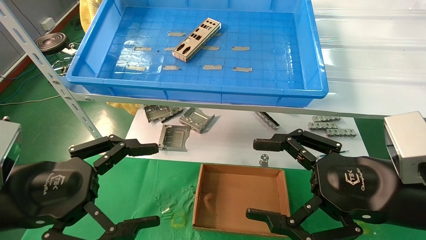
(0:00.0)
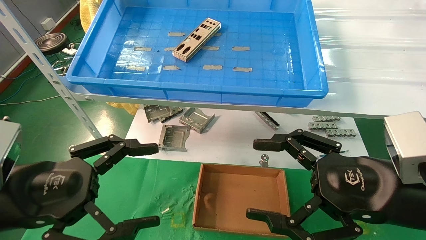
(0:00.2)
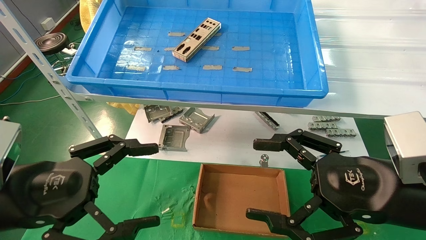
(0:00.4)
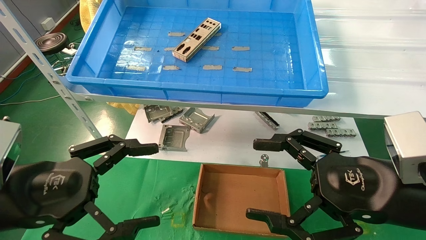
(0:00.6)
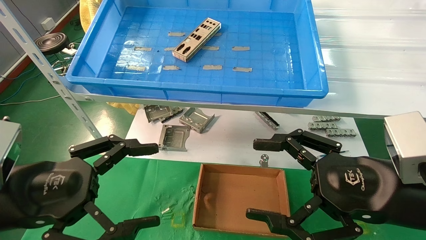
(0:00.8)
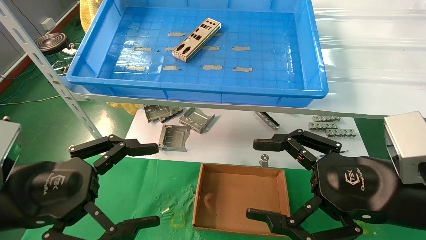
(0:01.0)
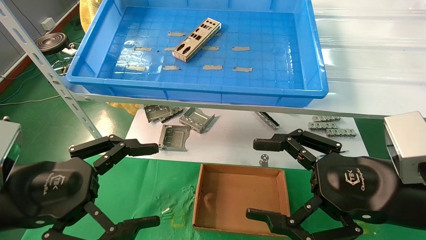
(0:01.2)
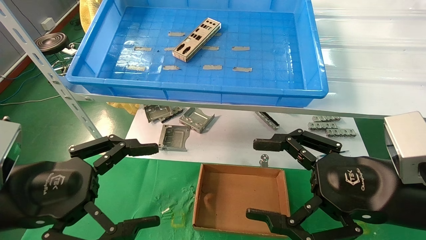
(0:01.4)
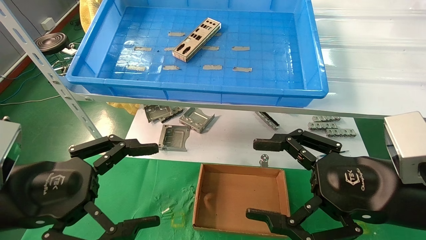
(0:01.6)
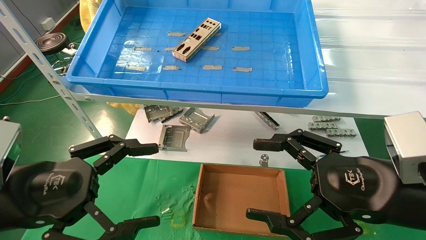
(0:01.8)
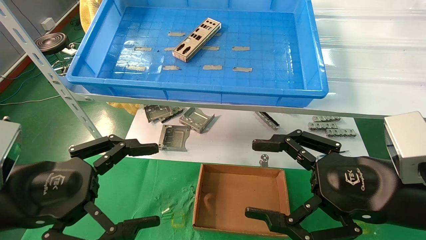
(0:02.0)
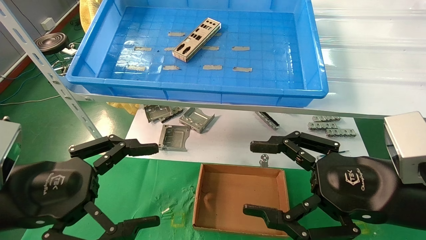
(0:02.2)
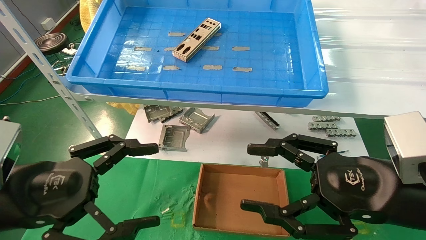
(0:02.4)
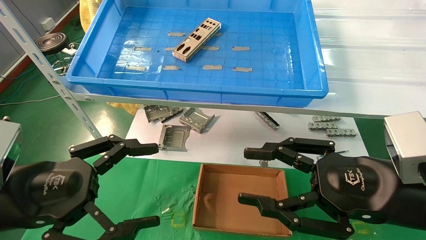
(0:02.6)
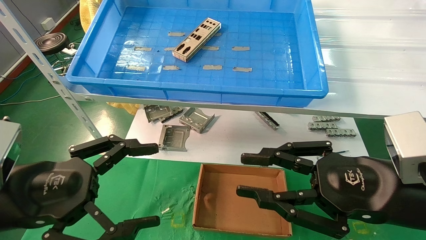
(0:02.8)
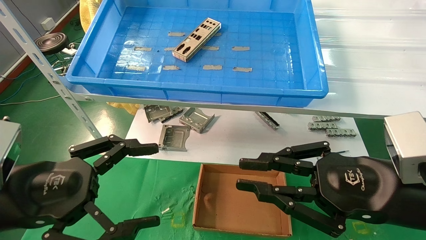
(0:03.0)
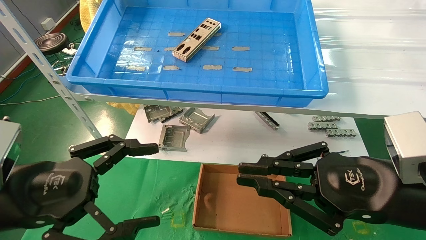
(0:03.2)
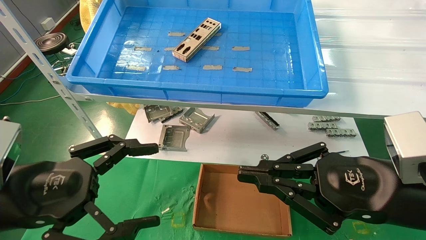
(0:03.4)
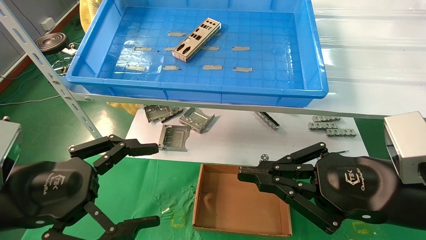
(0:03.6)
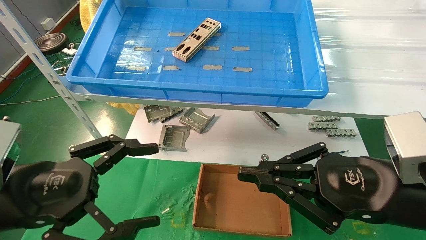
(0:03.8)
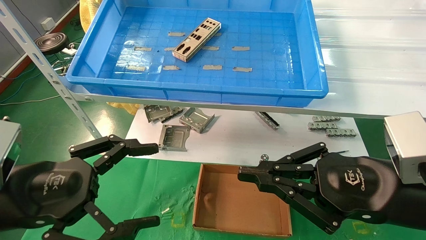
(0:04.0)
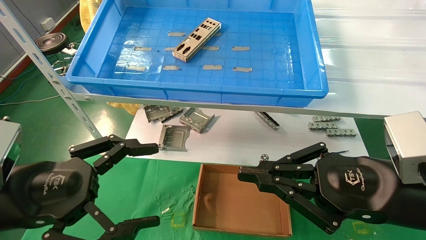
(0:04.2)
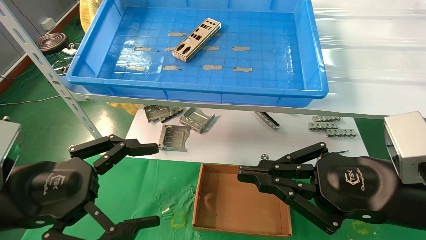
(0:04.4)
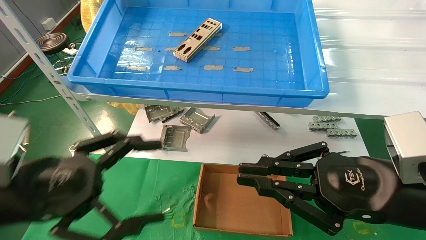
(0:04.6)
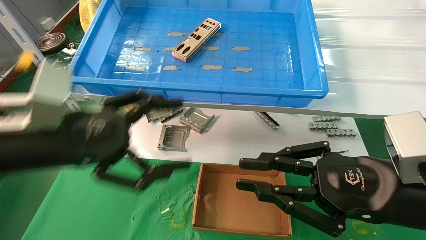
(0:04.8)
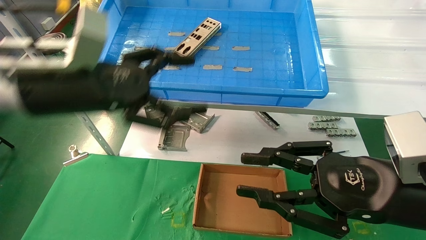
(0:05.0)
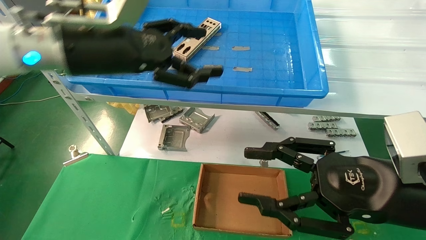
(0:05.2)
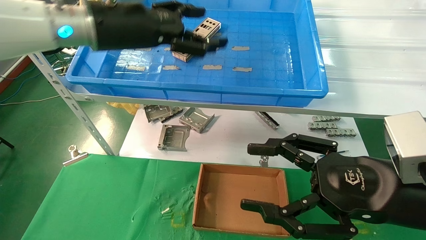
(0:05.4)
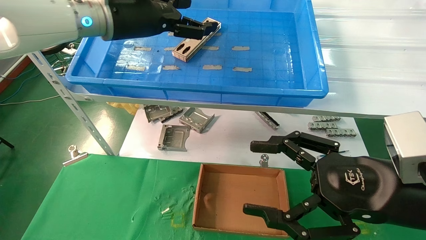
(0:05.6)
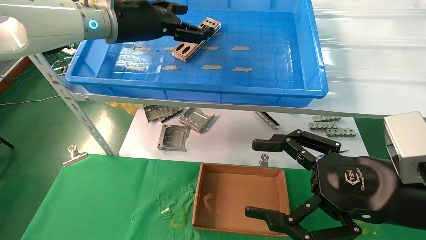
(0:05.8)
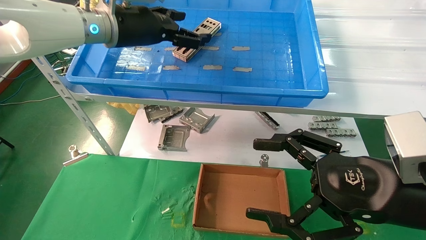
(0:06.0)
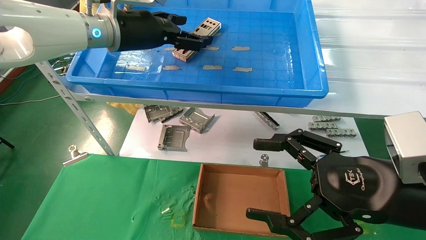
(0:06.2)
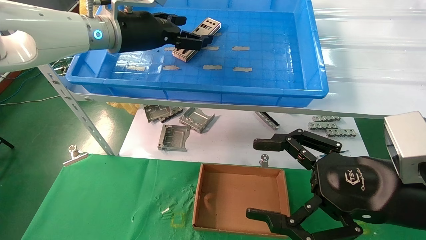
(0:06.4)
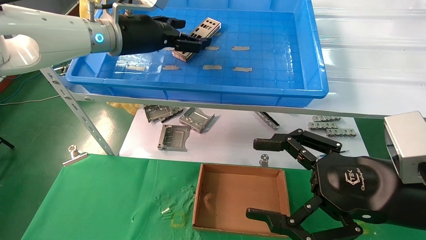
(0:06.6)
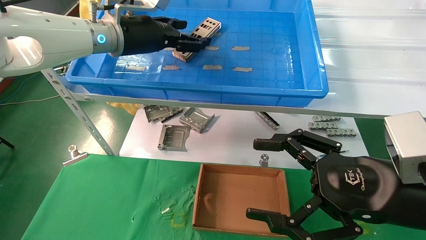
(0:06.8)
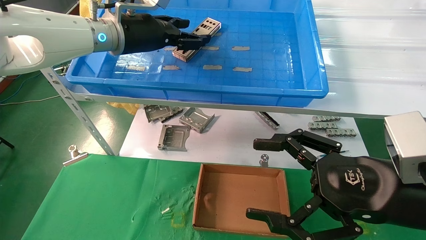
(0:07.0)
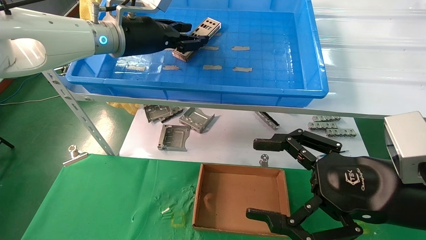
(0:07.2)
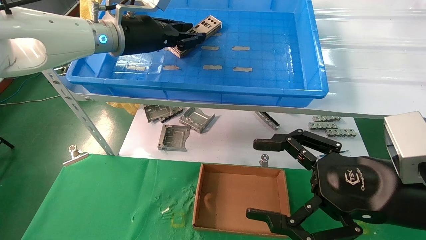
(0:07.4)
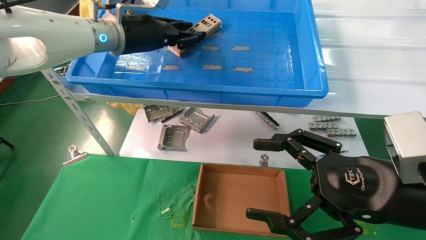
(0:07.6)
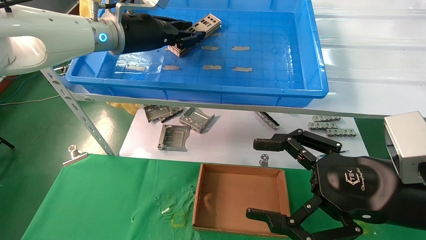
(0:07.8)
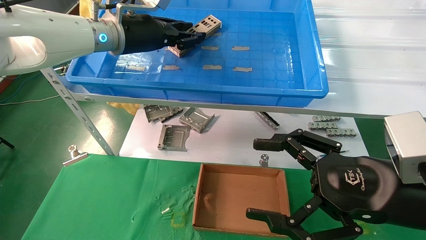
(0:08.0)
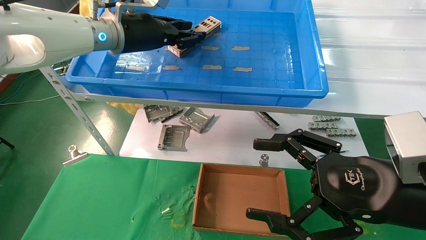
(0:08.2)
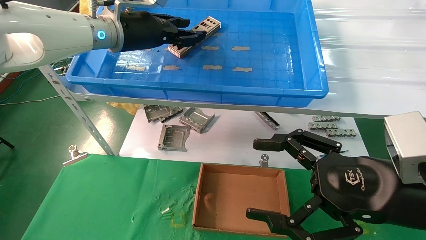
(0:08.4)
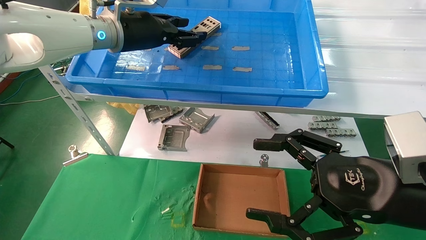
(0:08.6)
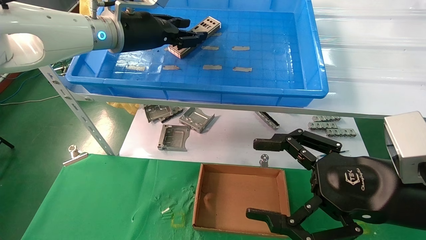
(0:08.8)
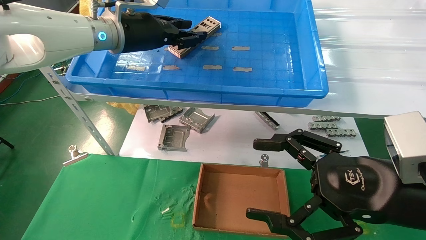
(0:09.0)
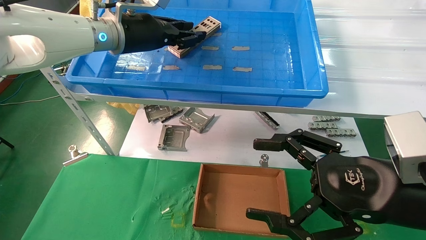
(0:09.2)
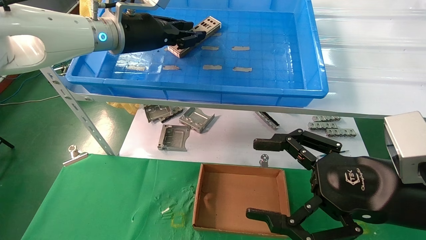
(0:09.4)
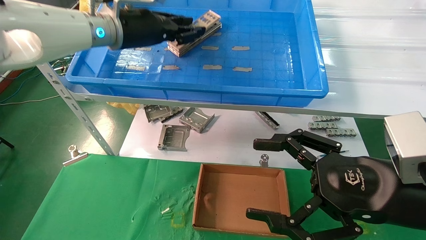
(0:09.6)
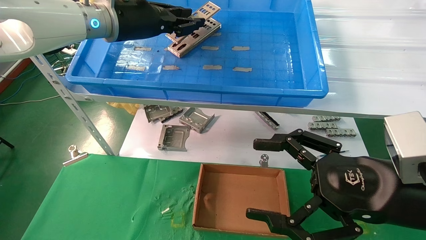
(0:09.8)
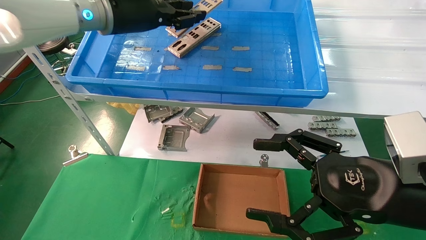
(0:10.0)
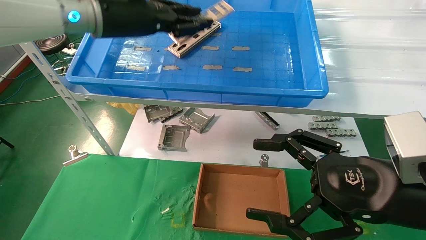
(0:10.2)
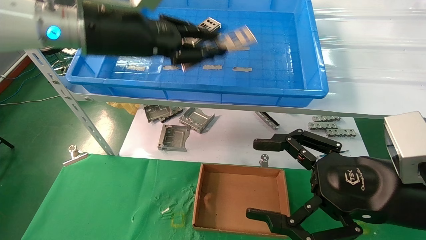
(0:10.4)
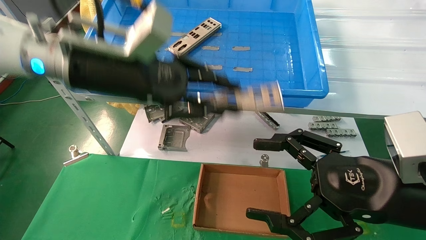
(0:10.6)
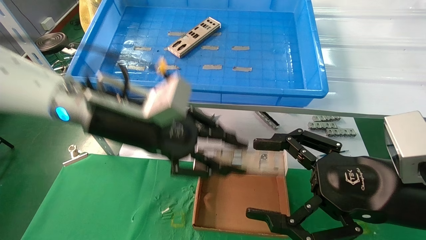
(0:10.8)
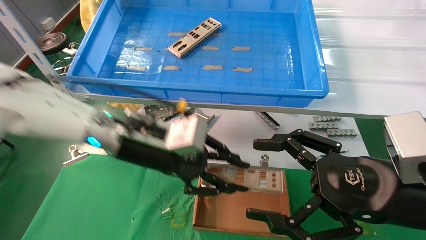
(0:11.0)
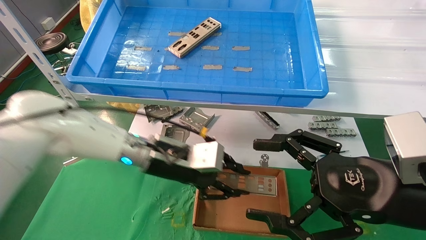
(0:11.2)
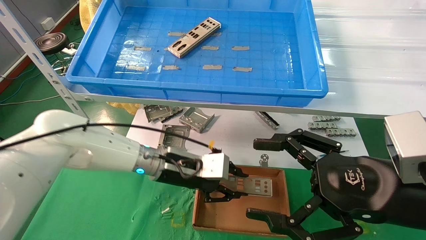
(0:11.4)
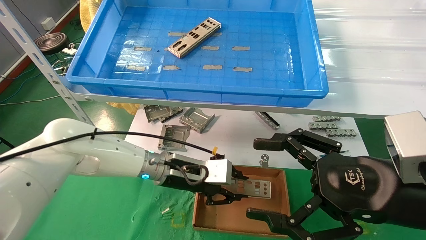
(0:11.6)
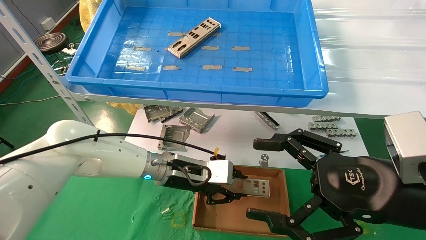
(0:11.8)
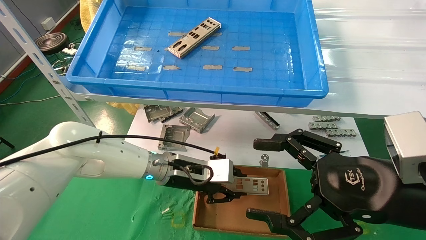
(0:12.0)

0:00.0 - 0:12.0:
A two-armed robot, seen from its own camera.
Task of the whole recording: pick up the parts on the tray and put them in the cardboard box.
Step, 0:05.0 - 0:09.6: Pick up the IO bracket from the container box.
0:00.0 - 0:01.6: Both grippers stay about where they are.
0:01.6 - 0:03.0: The right gripper closes up.
0:03.0 - 0:04.4: Both grippers stay about where they are.
0:04.4 - 0:06.0: The left gripper shifts about 30 cm forward, upward and to the right. Meanwhile the right gripper opens.
0:06.0 - 0:07.6: The left gripper closes.
0:07.6 - 0:09.0: The two grippers keep their place.
0:09.0 - 0:10.4: The left gripper travels backward by about 10 cm.
0:10.4 - 0:12.0: The left gripper is displaced downward by roughly 25 cm.

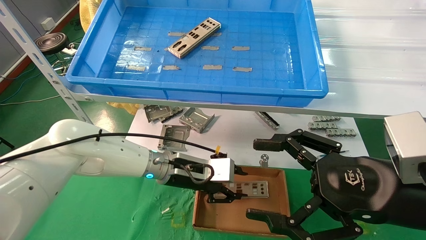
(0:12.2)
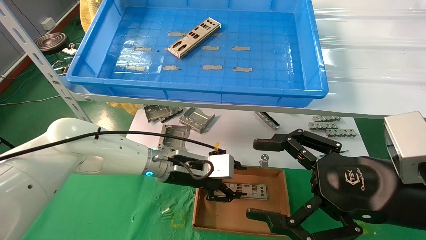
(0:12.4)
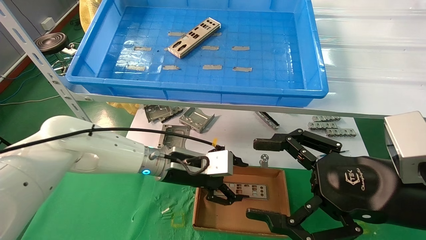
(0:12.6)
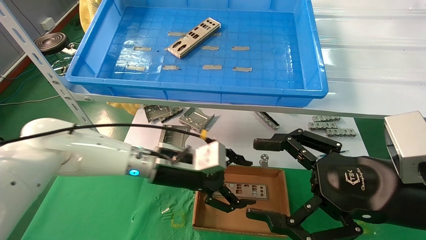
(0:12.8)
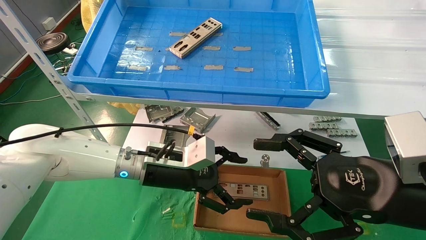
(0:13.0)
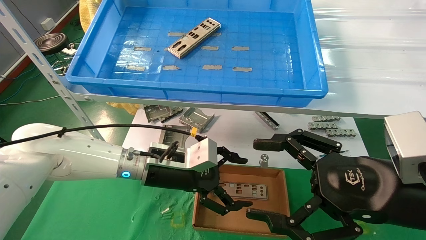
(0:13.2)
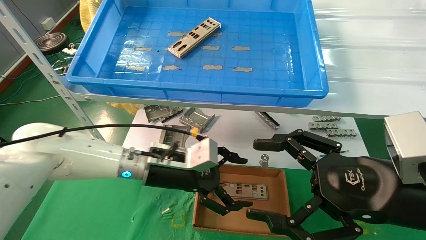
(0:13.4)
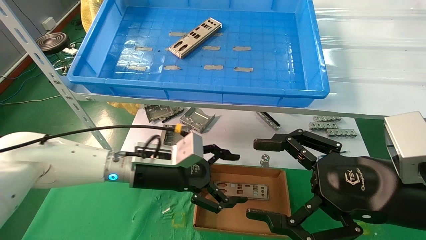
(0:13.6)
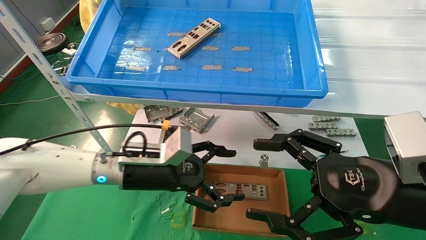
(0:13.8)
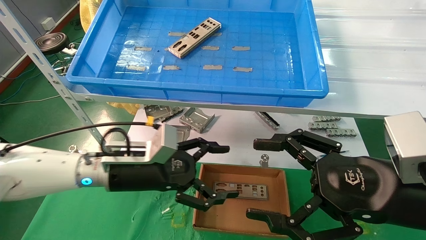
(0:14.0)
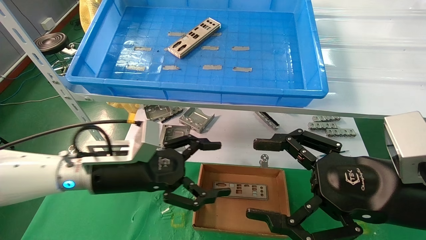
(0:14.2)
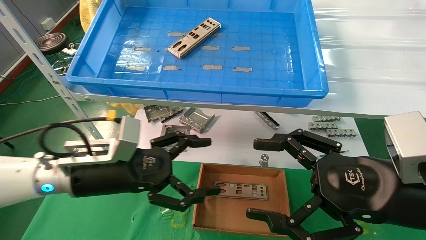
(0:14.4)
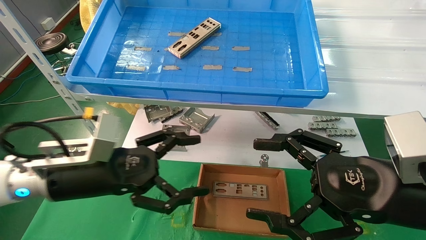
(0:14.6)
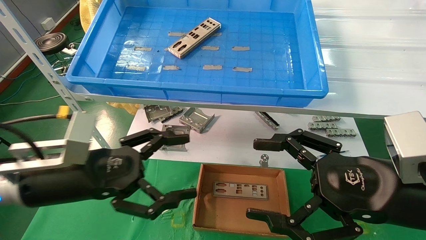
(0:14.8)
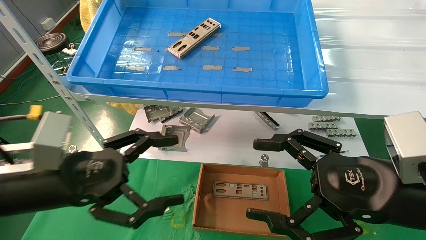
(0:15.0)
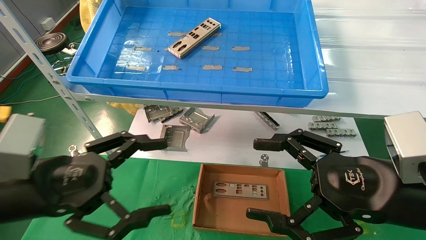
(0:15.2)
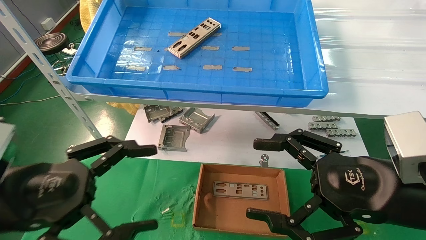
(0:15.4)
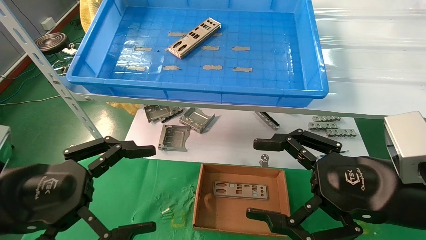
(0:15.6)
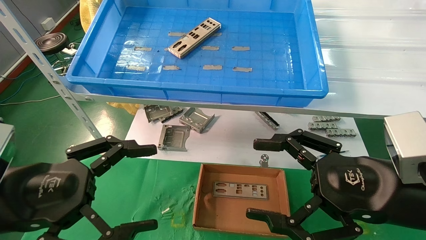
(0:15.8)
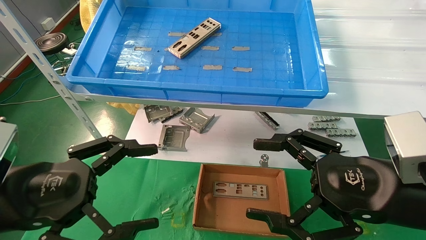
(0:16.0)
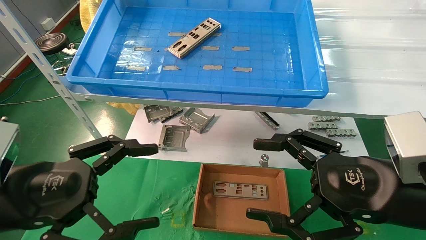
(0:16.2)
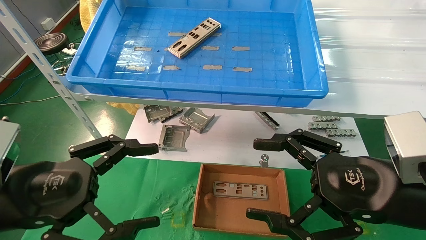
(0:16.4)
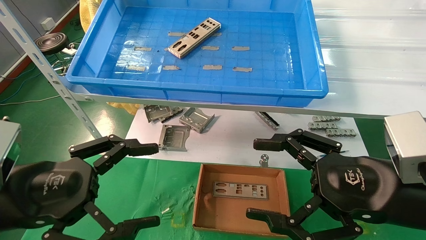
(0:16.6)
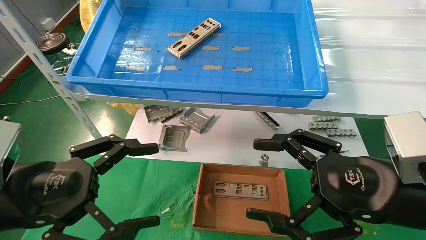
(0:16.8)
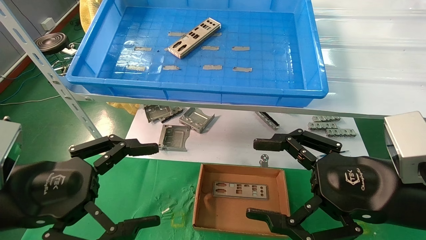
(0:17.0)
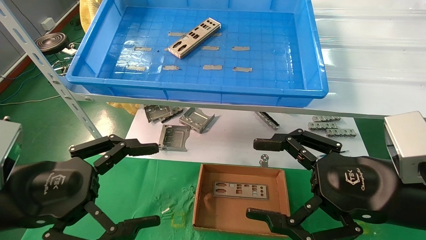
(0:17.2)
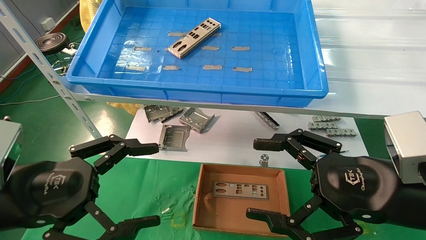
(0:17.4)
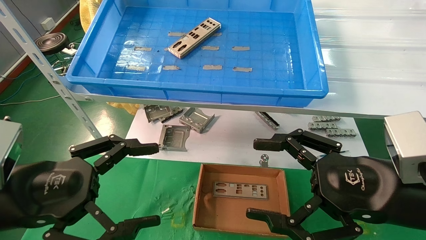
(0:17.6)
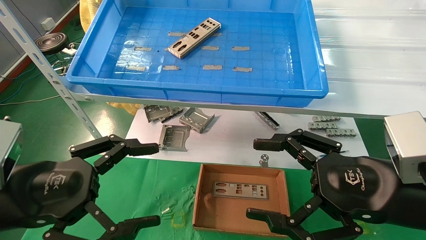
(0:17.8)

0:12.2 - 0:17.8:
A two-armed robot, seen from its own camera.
Task of the whole recording: pick up the parts on the tray and put them in the cardboard box.
0:12.2 - 0:13.6: The left gripper shifts by about 5 cm, and opens.
0:13.6 - 0:15.0: The left gripper travels to the left and backward by approximately 20 cm.
0:15.0 - 0:16.4: The left gripper ends up about 5 cm from where it was.
0:16.4 - 0:17.8: The two grippers keep their place.
